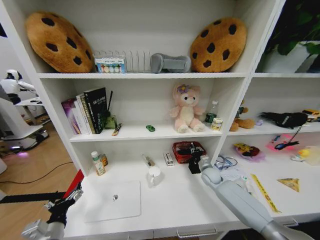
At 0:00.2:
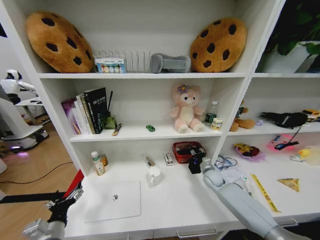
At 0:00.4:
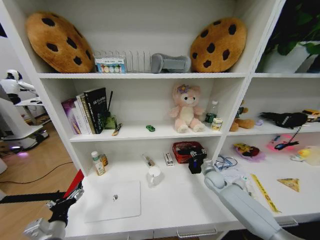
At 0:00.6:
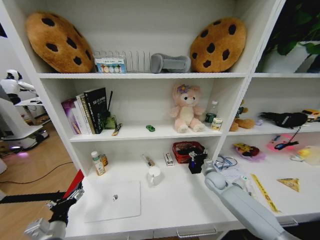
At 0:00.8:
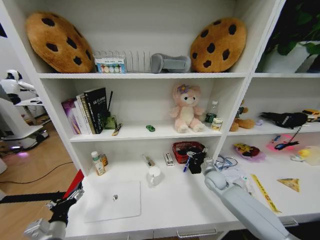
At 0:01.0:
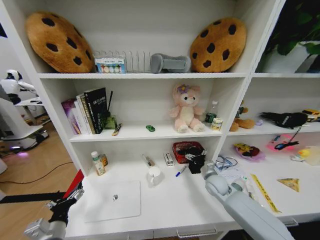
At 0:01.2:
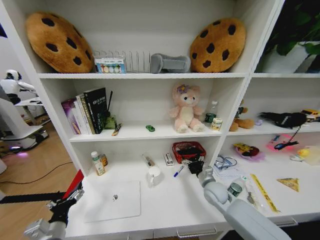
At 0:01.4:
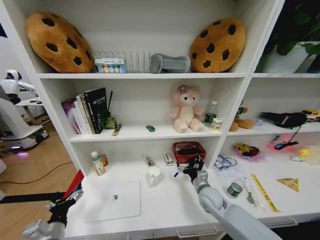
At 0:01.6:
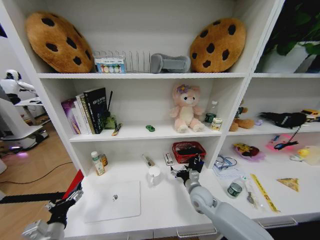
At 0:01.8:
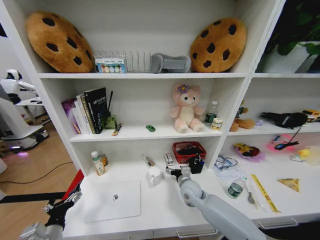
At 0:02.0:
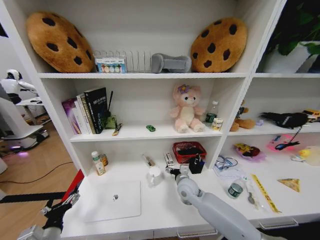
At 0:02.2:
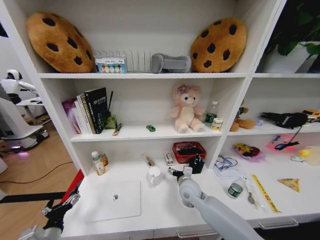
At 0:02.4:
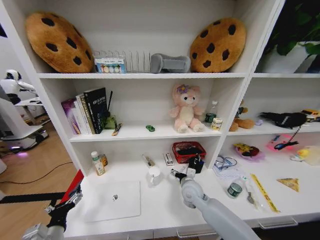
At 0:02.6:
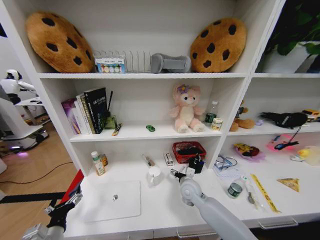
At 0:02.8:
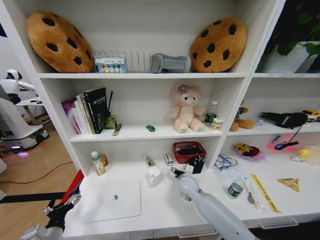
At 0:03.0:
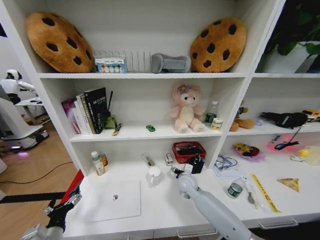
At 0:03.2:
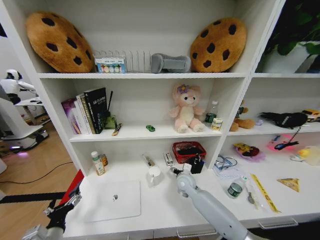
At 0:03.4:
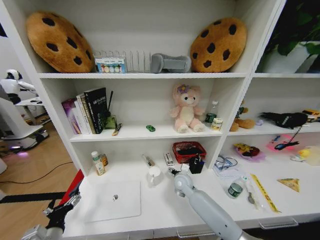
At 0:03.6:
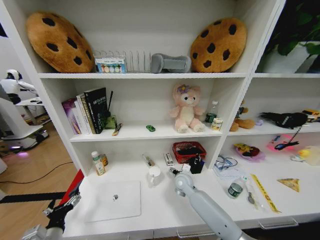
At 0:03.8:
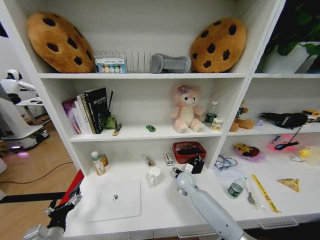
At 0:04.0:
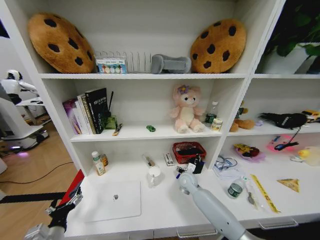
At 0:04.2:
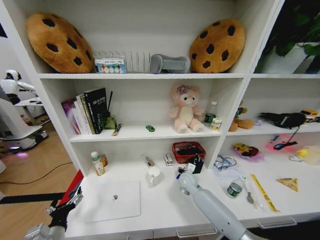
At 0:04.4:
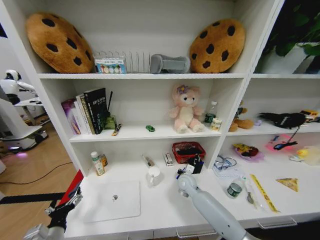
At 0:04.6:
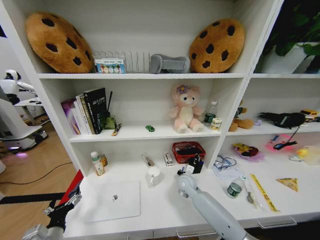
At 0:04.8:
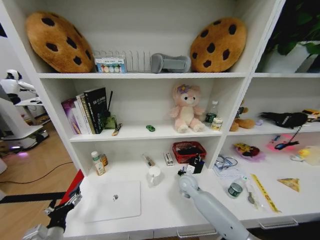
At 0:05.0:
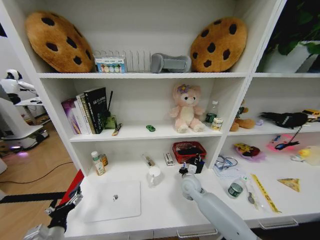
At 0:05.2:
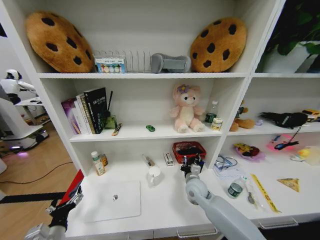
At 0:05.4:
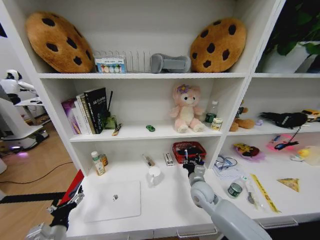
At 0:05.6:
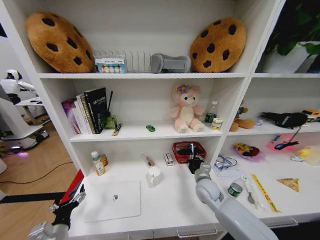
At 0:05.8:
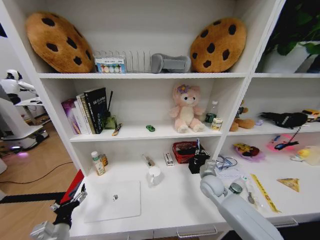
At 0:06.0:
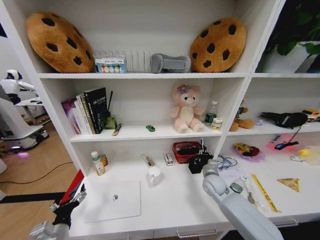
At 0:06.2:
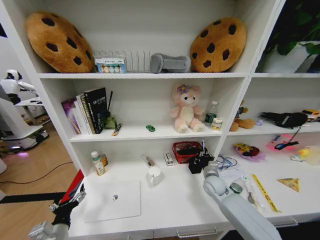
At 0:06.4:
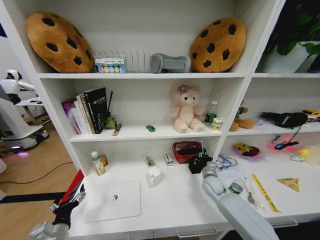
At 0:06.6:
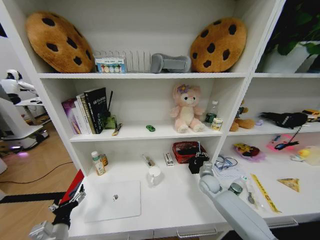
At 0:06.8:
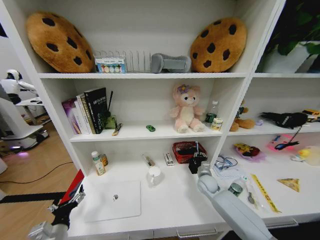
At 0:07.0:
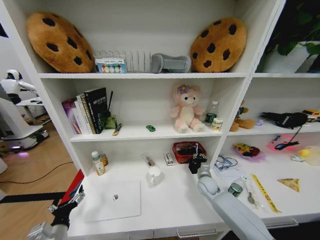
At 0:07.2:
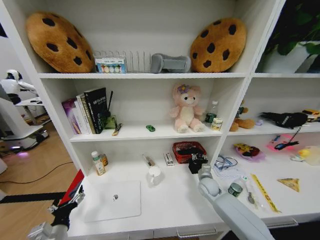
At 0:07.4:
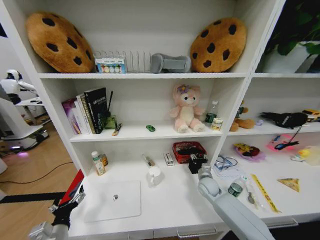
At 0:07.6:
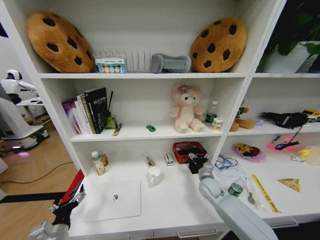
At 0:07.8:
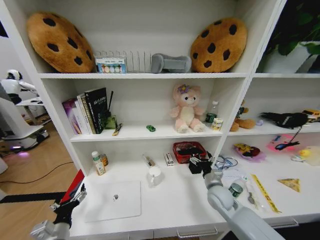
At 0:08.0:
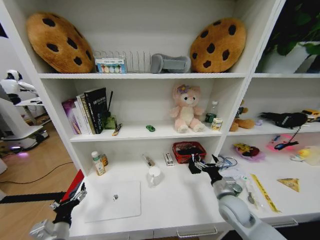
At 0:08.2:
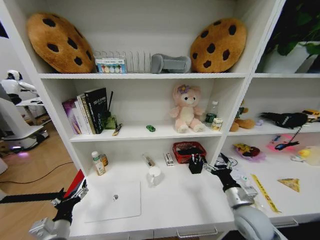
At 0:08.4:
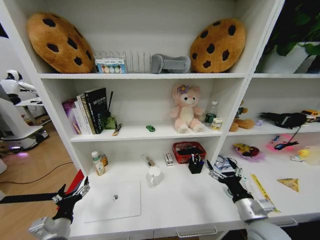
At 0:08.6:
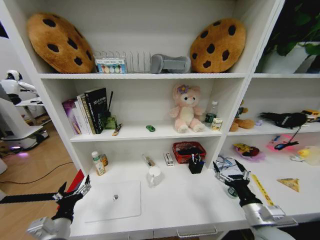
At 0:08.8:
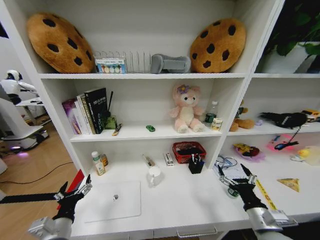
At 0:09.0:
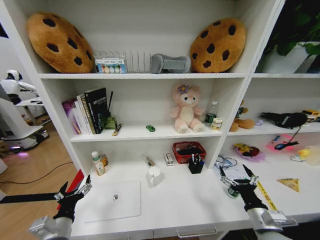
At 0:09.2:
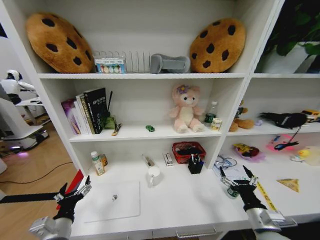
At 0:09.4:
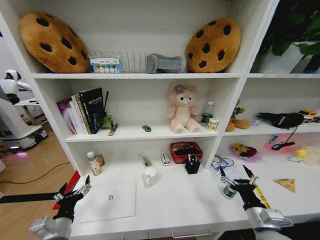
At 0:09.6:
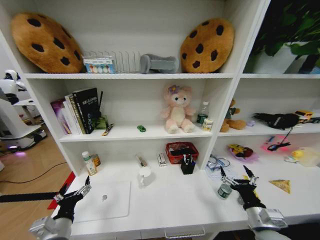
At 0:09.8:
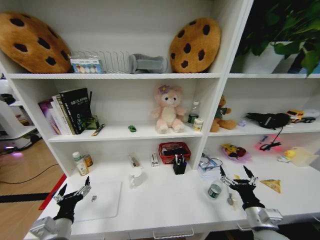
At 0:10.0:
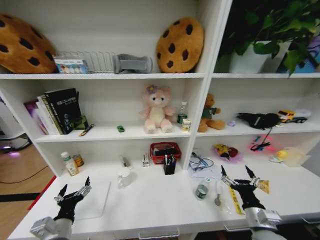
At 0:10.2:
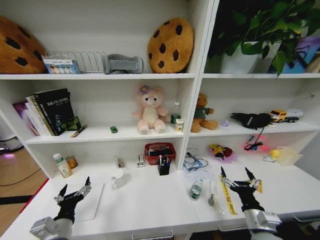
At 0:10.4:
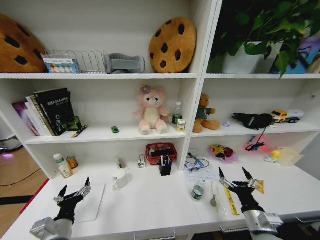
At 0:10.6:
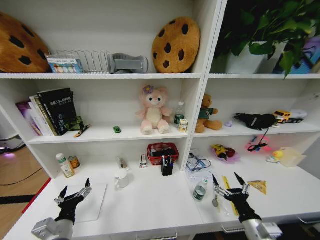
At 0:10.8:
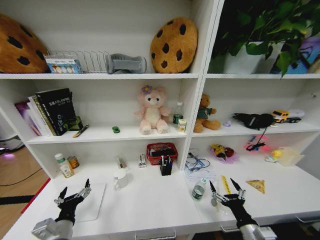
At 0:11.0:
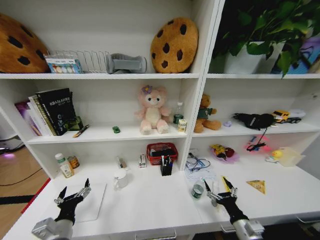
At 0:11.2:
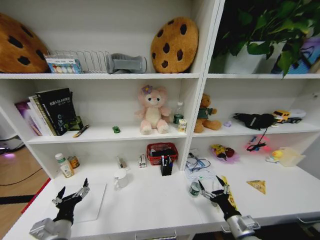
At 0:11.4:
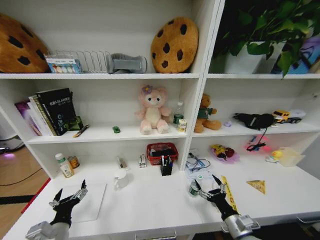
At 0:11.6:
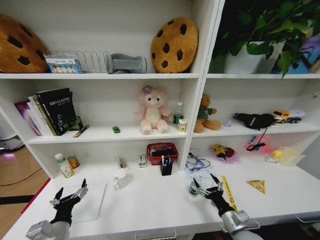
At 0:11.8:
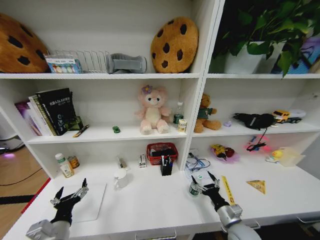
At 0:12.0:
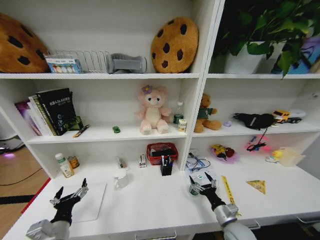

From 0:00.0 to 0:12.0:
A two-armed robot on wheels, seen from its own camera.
Task of the whole recording: Organize the objects on the table.
From 0:00.0 to 0:01.6: The right gripper shifts some 15 cm backward and to the left, and opens.
From 0:01.6 to 0:03.0: The right gripper heads forward and to the left, covering roughly 10 cm.
From 0:03.0 to 0:04.4: The right gripper closes.
From 0:04.4 to 0:06.0: The right gripper shifts approximately 10 cm to the right.
From 0:06.0 to 0:07.6: The right gripper opens its fingers.
From 0:07.6 to 0:09.0: The right gripper shifts some 20 cm backward. Meanwhile the left gripper moves roughly 5 cm.
From 0:10.4 to 0:12.0: The right gripper moves downward, approximately 10 cm.

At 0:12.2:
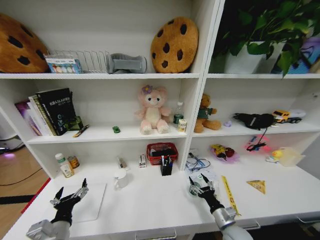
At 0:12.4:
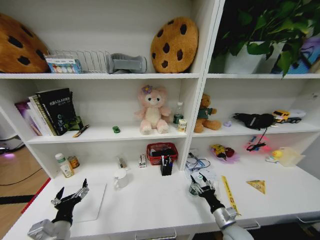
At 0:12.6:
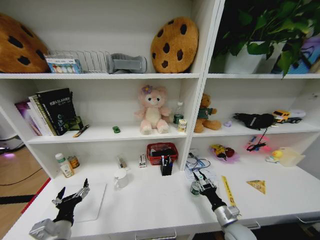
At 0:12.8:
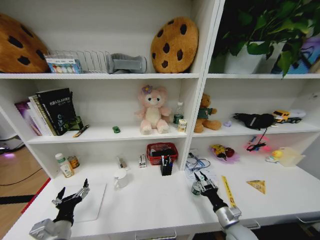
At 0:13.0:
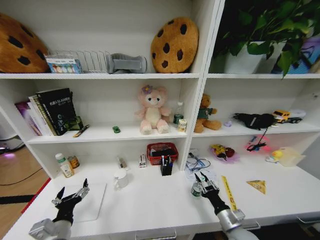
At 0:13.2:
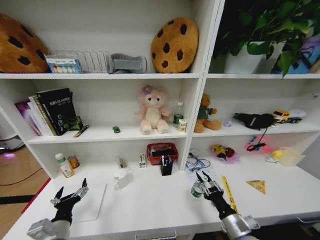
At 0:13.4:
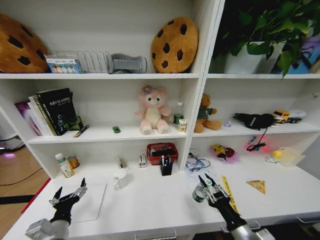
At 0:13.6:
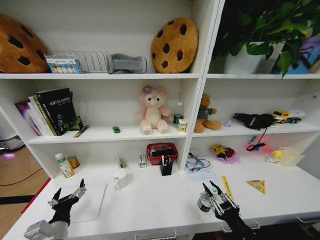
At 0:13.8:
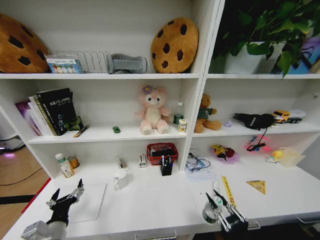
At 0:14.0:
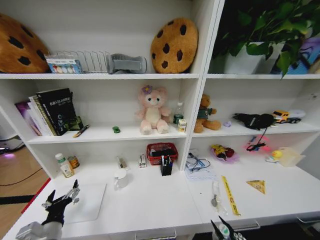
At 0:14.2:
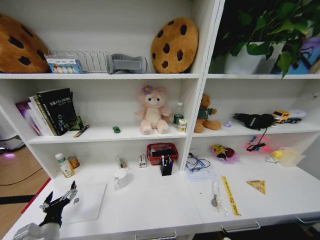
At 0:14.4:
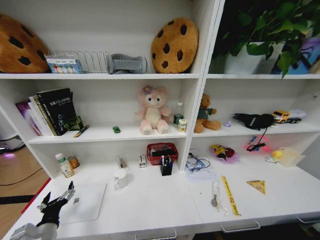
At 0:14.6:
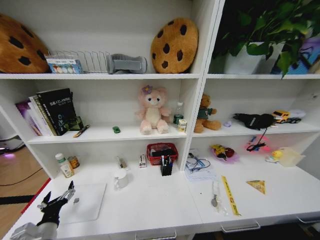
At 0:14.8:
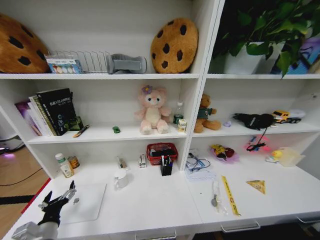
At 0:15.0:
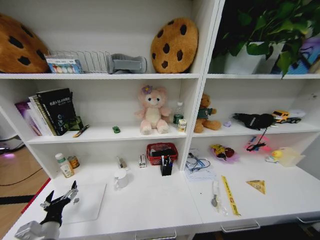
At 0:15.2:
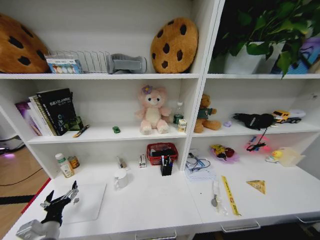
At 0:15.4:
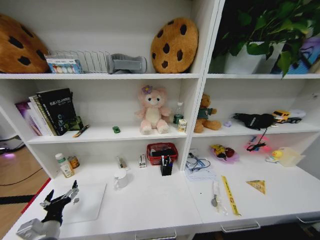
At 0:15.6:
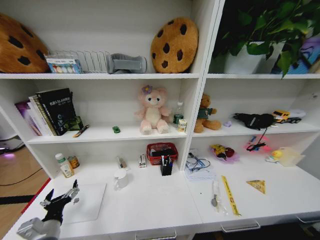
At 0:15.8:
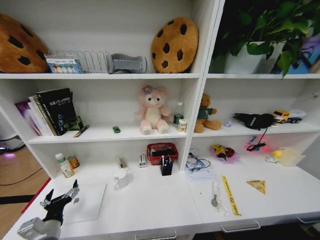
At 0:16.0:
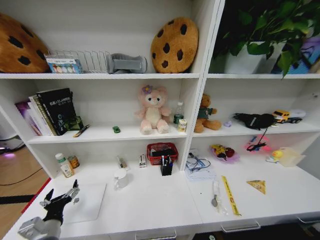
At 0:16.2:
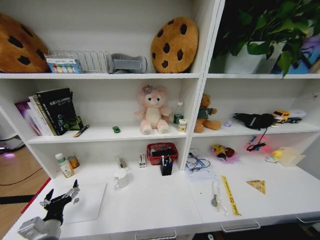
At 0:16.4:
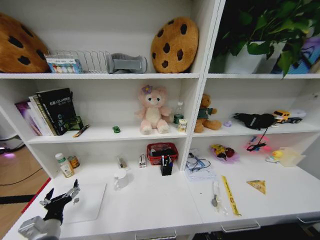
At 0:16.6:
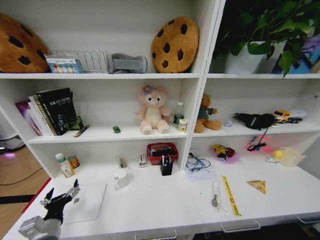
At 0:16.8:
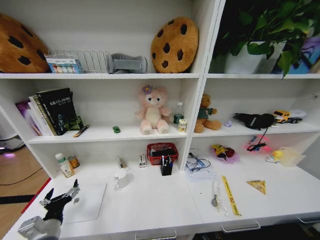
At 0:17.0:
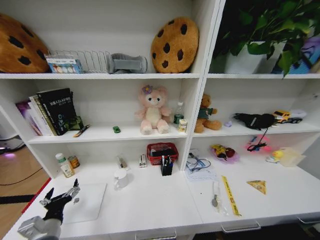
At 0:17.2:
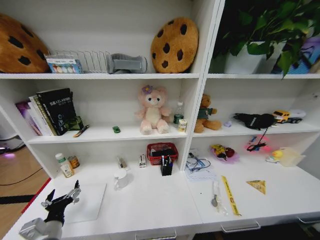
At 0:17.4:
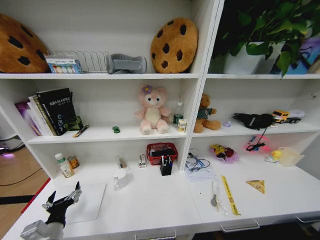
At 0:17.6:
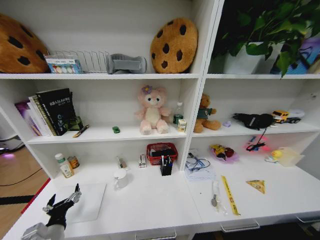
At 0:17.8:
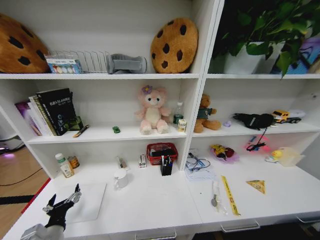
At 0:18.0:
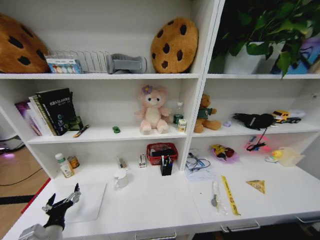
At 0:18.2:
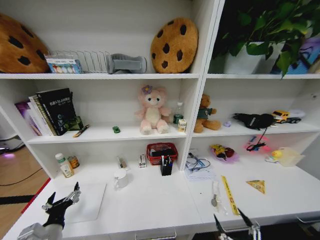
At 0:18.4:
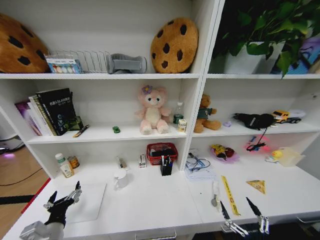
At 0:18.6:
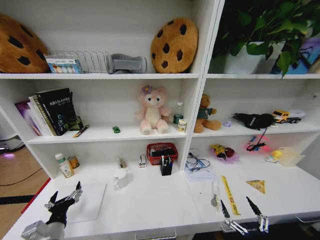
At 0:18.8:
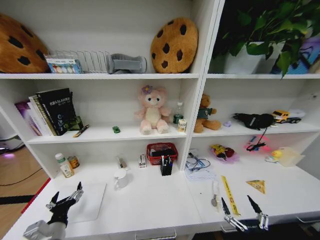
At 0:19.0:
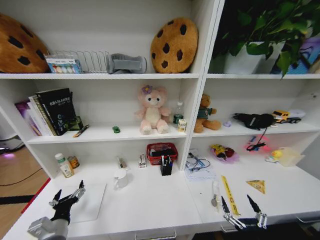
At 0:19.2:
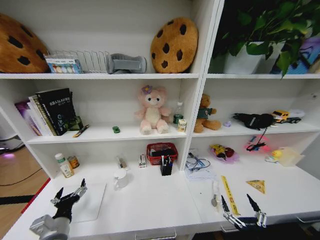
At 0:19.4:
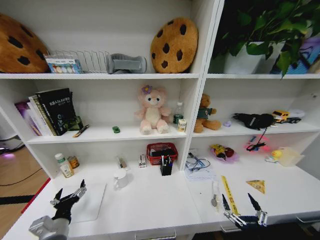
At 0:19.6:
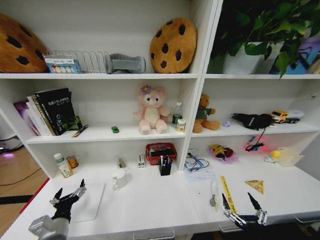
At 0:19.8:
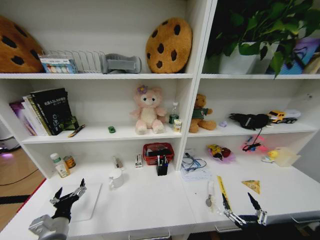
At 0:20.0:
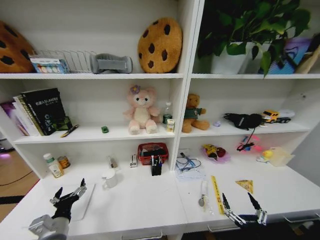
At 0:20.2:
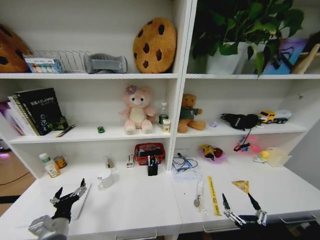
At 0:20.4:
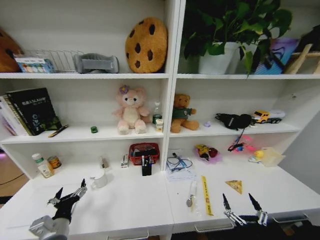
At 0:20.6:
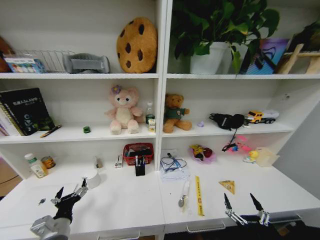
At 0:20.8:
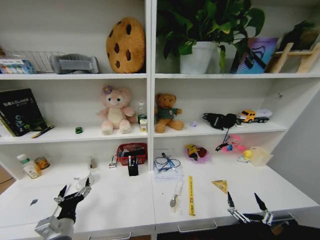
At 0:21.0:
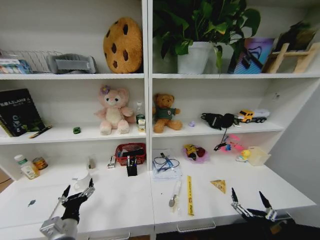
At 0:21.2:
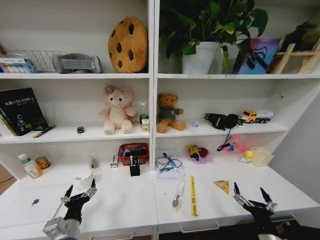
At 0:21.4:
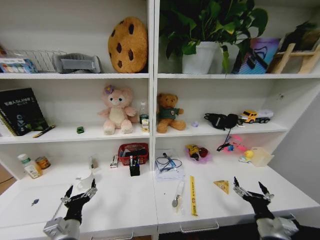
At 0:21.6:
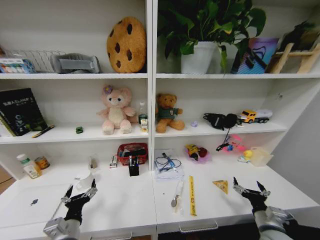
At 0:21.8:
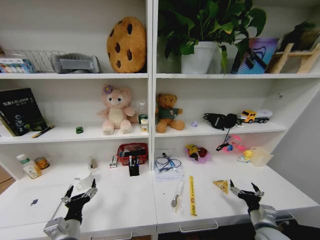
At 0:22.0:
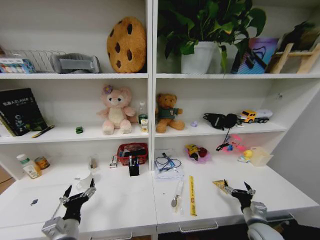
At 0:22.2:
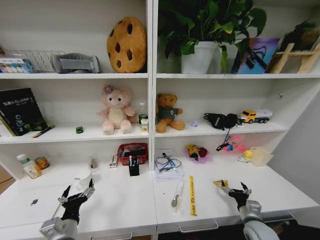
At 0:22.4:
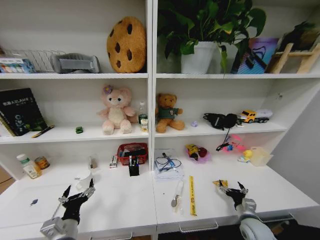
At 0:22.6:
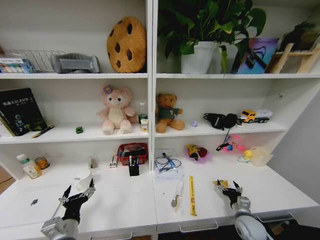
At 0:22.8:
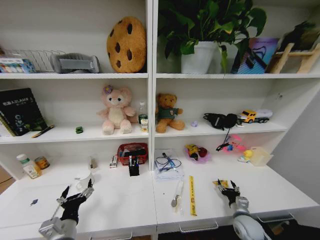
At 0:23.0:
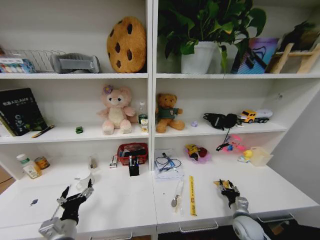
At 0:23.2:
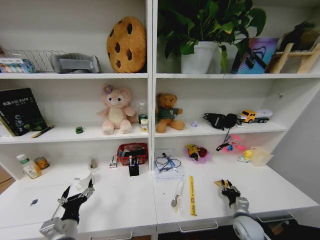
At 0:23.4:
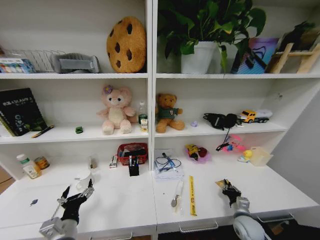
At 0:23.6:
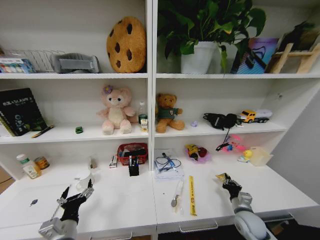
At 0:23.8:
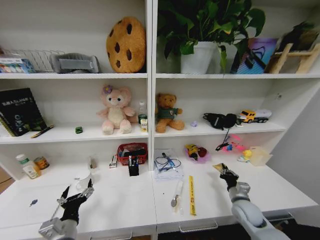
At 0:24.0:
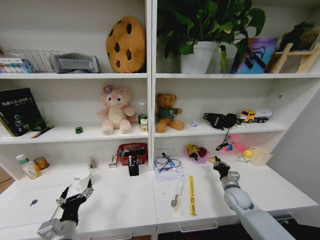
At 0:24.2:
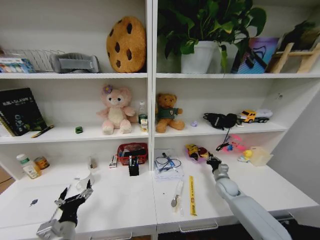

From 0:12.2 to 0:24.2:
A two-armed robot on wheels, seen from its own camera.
Task of the whole recording: Organize the objects on the table.
From 0:12.2 to 0:13.8: The right gripper moves backward and upward, approximately 20 cm, and closes.
From 0:13.8 to 0:15.2: The right gripper moves downward and backward, some 30 cm.
From 0:15.2 to 0:16.6: The right gripper is displaced forward and downward by some 30 cm.
From 0:16.6 to 0:18.2: The right gripper moves upward, about 30 cm, and opens up.
From 0:18.2 to 0:19.8: The right gripper travels forward by some 5 cm.
From 0:19.8 to 0:21.2: The right gripper heads forward, covering roughly 5 cm.
From 0:21.2 to 0:22.6: The right gripper goes some 15 cm forward and downward.
From 0:22.6 to 0:24.2: The right gripper shifts some 15 cm forward, and closes up.
